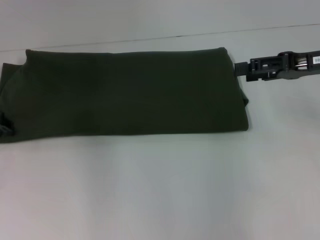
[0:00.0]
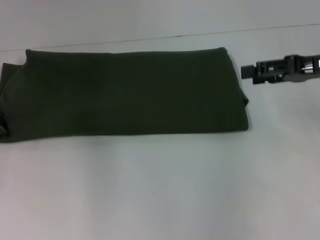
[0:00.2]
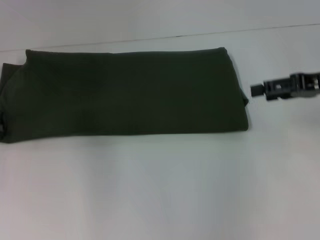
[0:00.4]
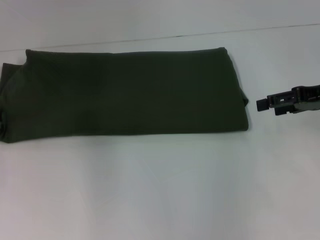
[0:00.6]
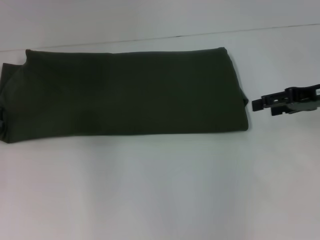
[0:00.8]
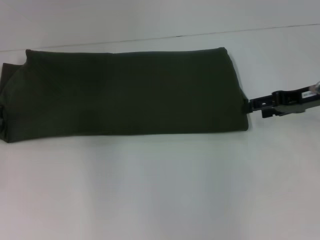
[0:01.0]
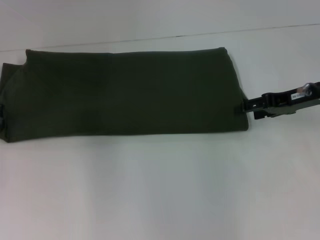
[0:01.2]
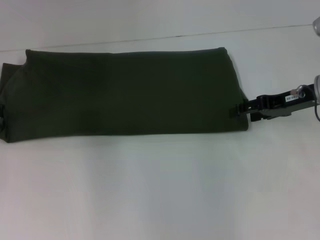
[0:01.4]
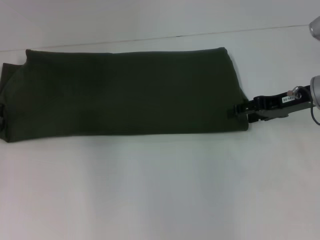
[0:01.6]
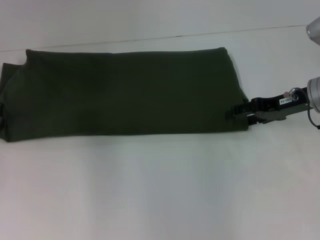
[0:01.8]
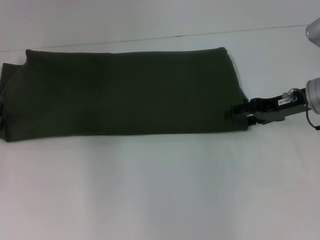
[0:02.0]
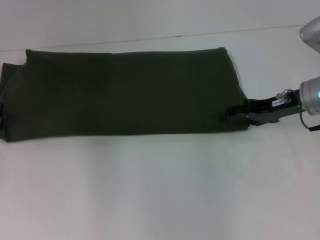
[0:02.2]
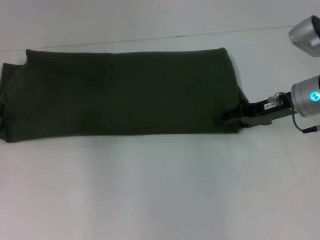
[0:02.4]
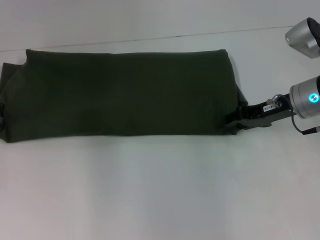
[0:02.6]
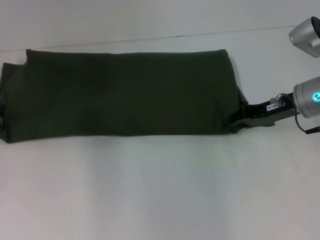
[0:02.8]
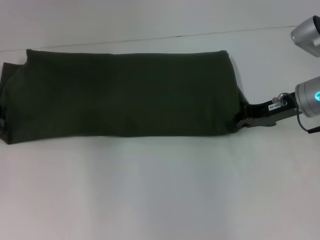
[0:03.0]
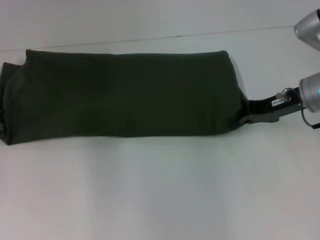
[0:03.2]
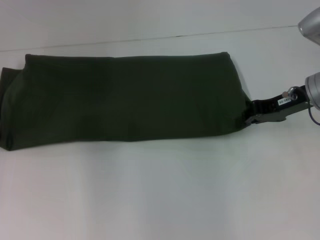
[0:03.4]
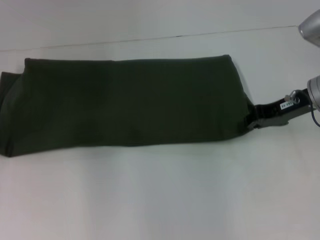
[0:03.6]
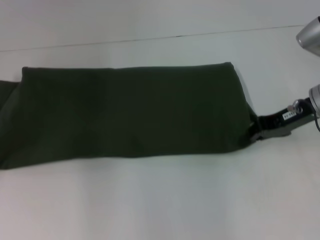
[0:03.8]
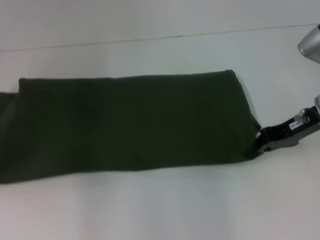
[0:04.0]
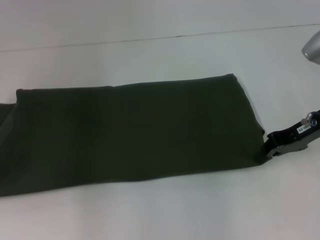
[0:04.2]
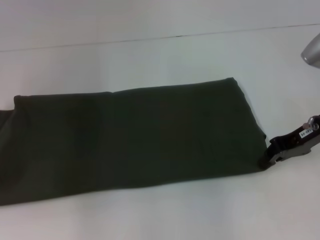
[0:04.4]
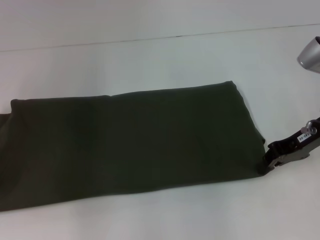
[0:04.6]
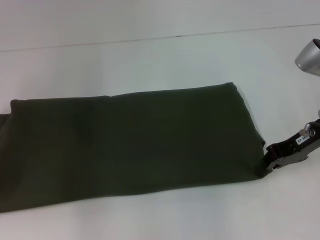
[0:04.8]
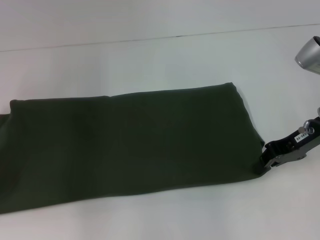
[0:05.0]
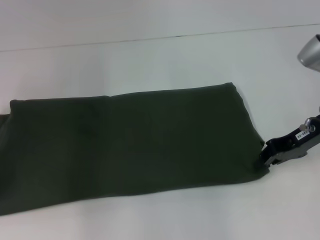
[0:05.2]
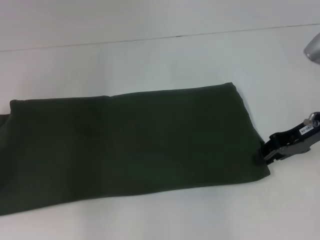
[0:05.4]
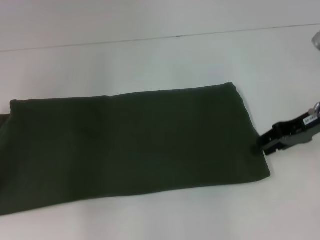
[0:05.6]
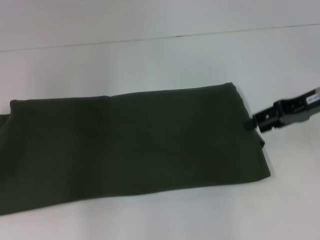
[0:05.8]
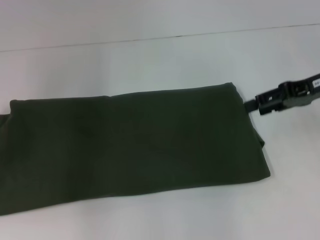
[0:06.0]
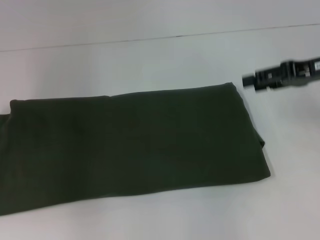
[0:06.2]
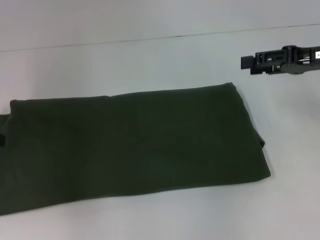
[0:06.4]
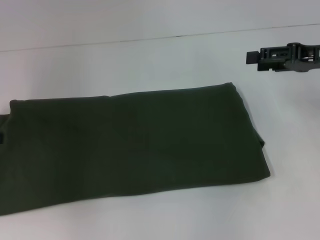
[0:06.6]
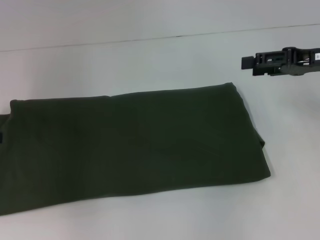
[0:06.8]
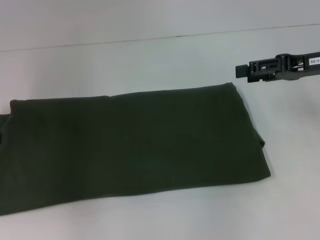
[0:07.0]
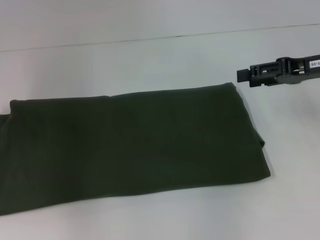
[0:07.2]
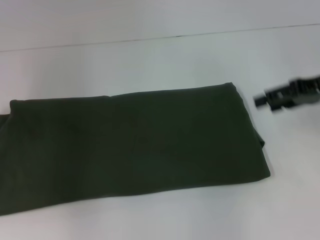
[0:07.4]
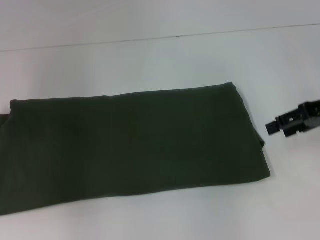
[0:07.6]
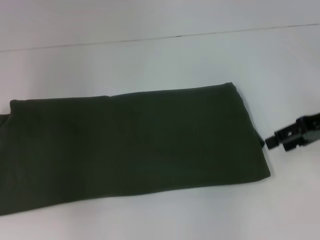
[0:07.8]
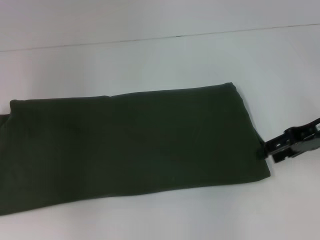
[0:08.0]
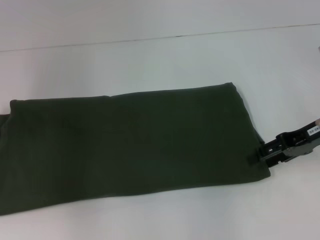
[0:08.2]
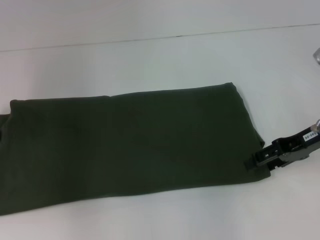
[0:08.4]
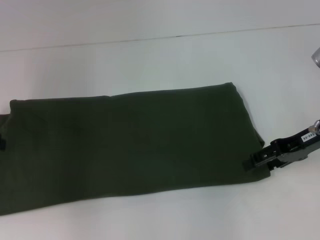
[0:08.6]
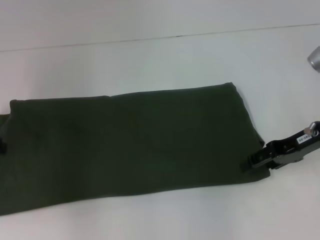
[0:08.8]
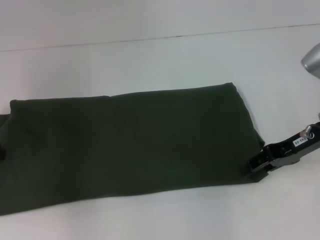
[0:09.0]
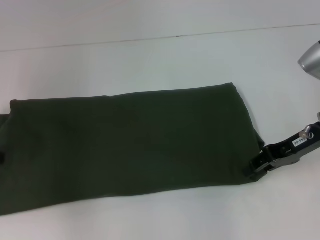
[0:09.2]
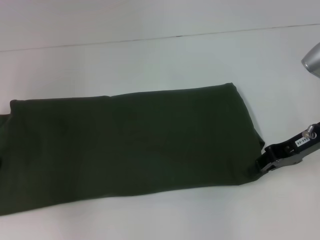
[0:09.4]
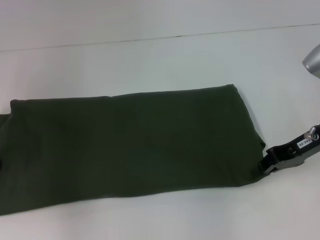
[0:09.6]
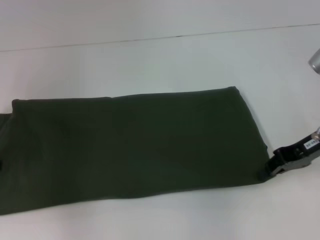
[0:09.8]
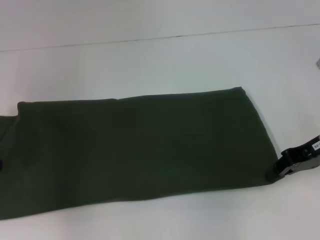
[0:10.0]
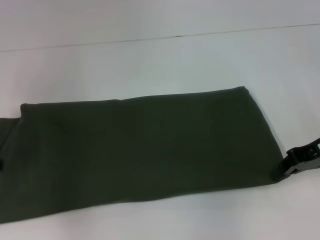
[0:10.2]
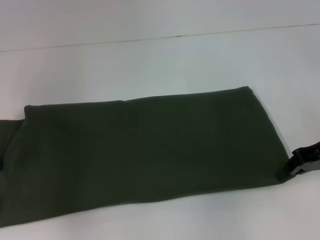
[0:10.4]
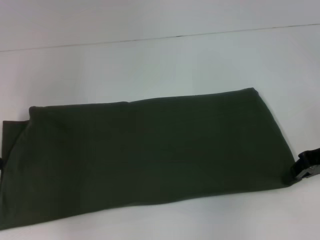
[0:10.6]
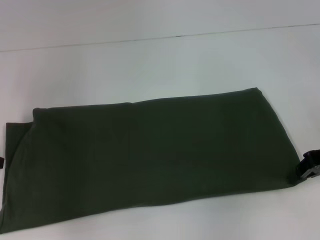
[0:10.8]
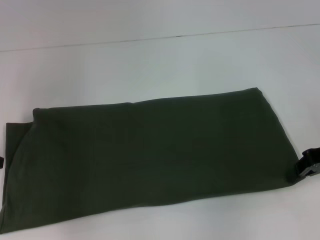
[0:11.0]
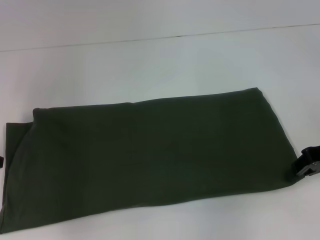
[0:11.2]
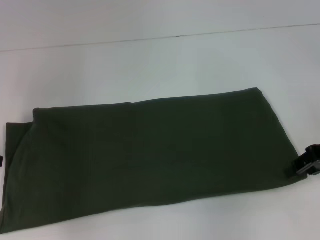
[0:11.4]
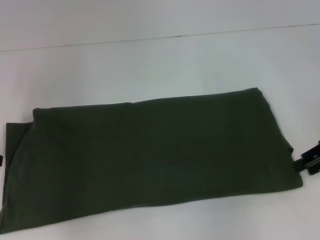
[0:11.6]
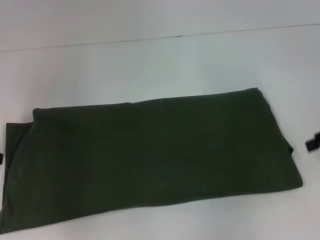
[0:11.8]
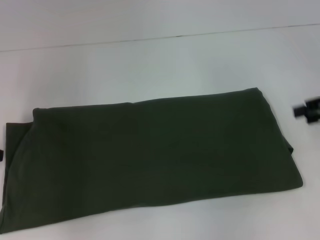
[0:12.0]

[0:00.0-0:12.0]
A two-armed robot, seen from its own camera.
Step, 0:00.0 to 0:11.4: Pull the clothes with your left hand.
Step, 0:00.0 to 0:11.4: Pull the clothes with your right hand.
0:00.0 to 0:01.6: The right gripper travels downward by some 5 cm.
0:01.6 to 0:03.0: The right gripper closes its fingers.
0:03.0 to 0:04.4: The left gripper shifts roughly 5 cm backward.
0:04.4 to 0:06.0: The right gripper goes some 5 cm upward, and opens. Meanwhile the left gripper opens its fingers.
0:07.6 to 0:09.0: The right gripper heads downward, covering about 5 cm.
0:09.0 to 0:10.4: The right gripper closes up.
0:10.4 to 0:12.0: The right gripper moves upward and to the right, roughly 10 cm, and opens up.

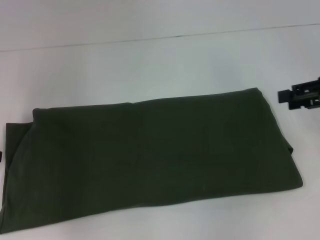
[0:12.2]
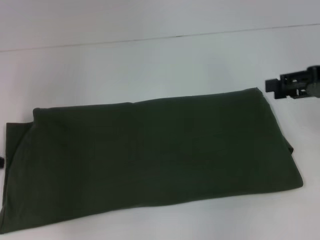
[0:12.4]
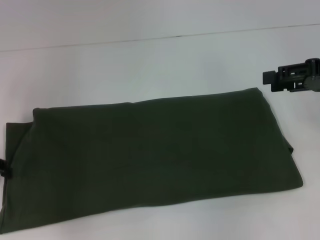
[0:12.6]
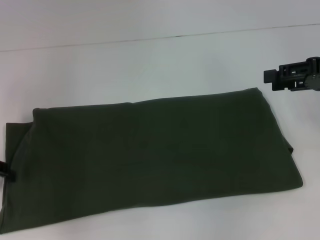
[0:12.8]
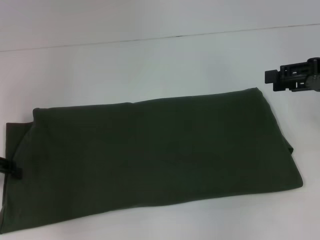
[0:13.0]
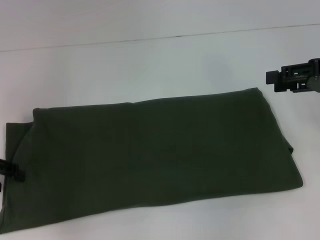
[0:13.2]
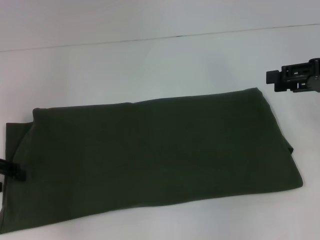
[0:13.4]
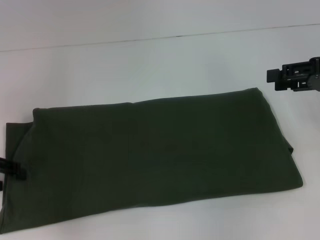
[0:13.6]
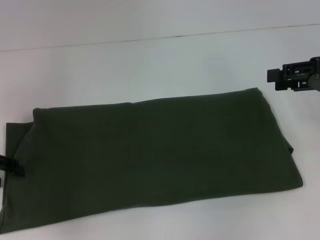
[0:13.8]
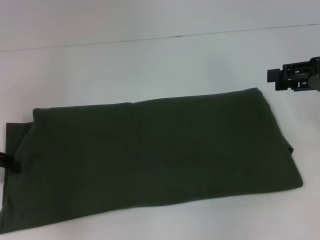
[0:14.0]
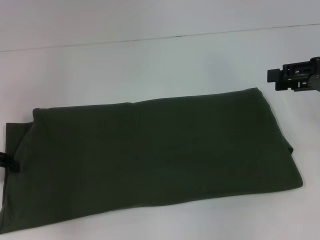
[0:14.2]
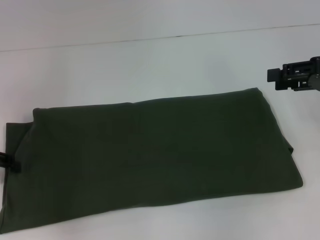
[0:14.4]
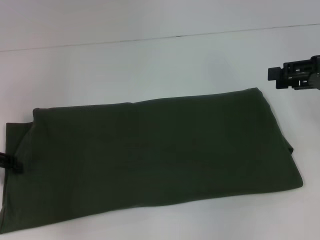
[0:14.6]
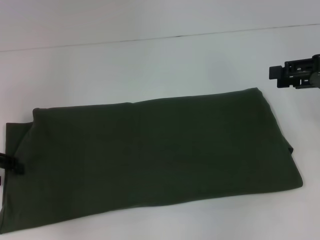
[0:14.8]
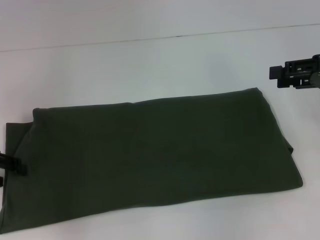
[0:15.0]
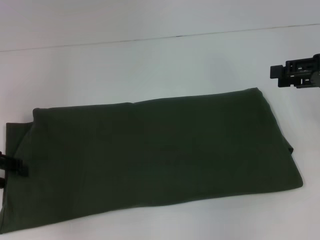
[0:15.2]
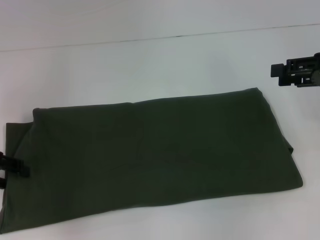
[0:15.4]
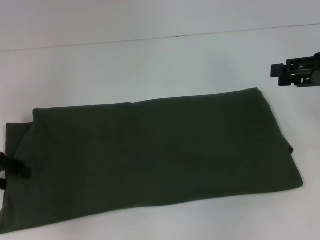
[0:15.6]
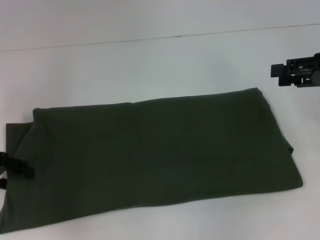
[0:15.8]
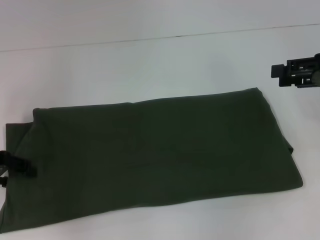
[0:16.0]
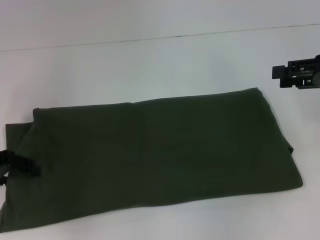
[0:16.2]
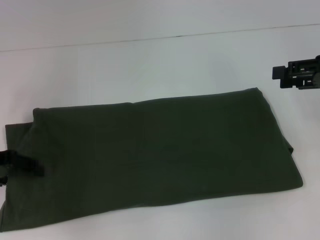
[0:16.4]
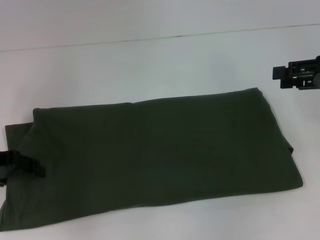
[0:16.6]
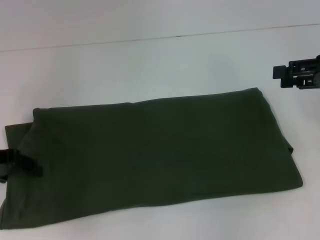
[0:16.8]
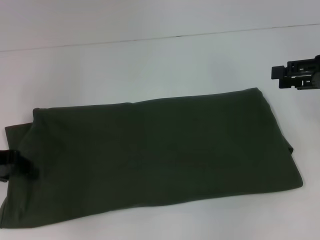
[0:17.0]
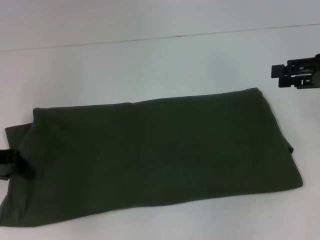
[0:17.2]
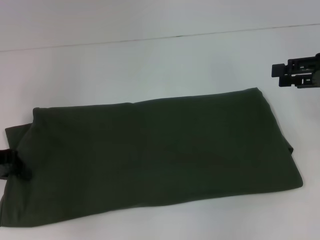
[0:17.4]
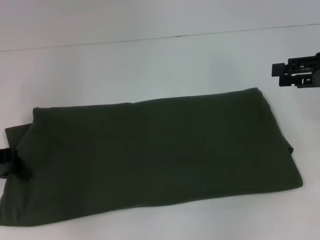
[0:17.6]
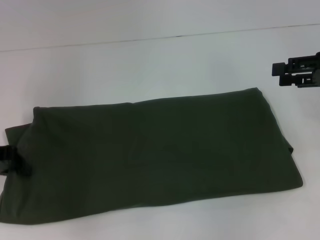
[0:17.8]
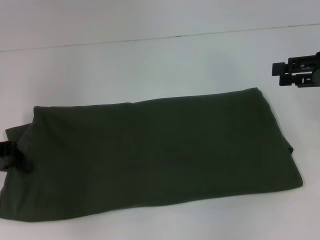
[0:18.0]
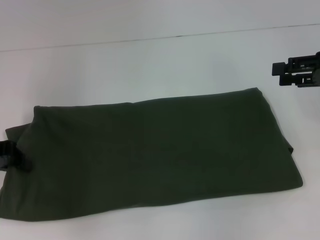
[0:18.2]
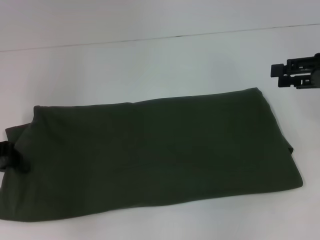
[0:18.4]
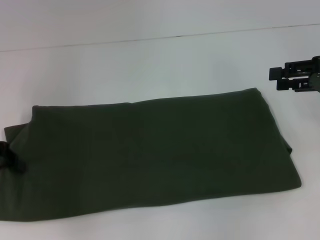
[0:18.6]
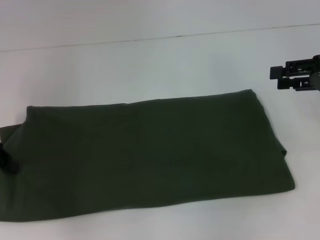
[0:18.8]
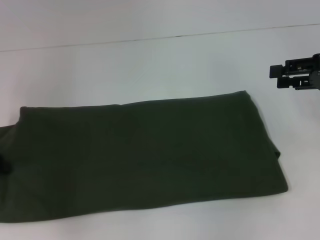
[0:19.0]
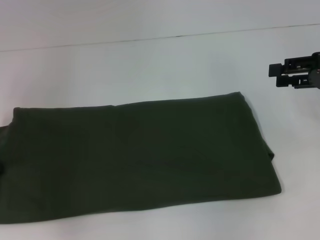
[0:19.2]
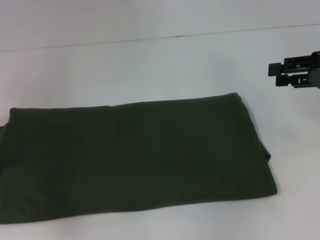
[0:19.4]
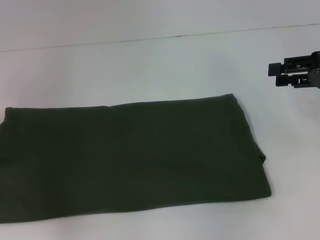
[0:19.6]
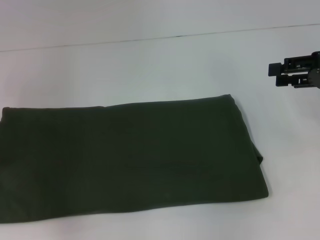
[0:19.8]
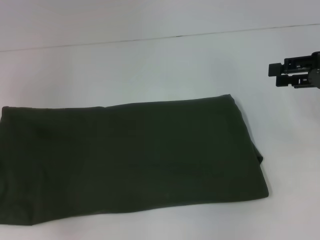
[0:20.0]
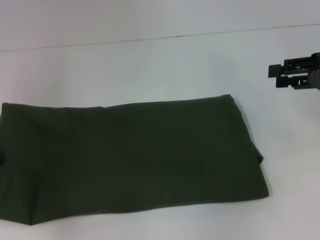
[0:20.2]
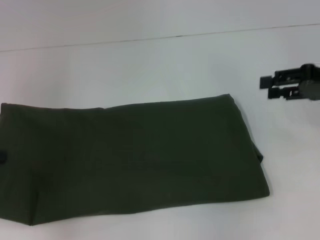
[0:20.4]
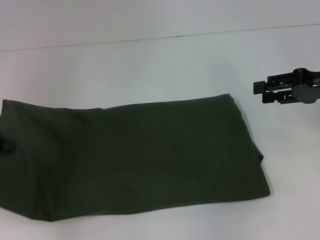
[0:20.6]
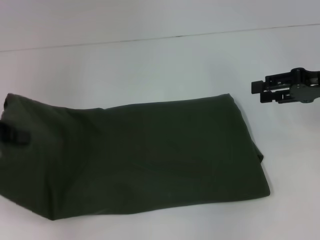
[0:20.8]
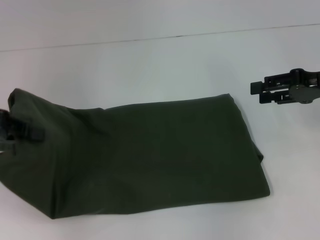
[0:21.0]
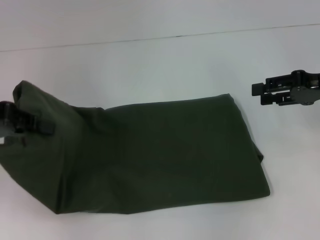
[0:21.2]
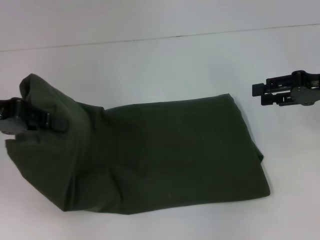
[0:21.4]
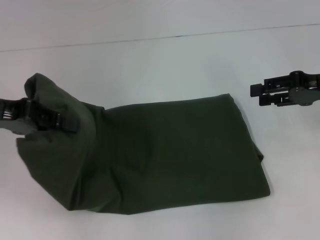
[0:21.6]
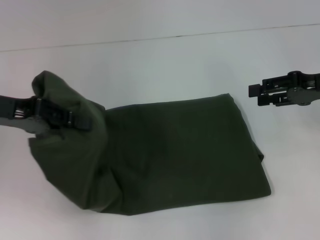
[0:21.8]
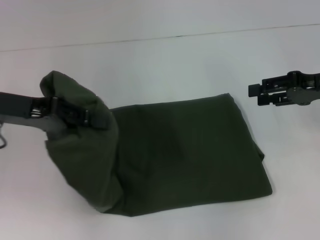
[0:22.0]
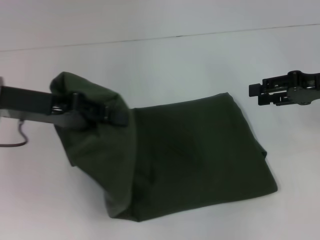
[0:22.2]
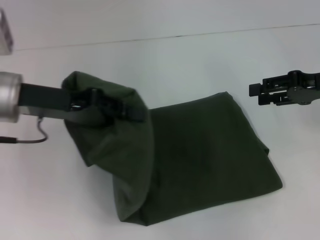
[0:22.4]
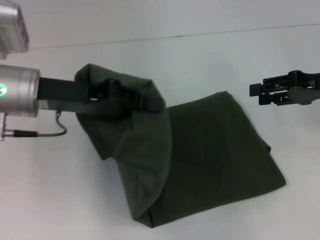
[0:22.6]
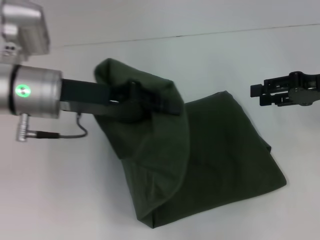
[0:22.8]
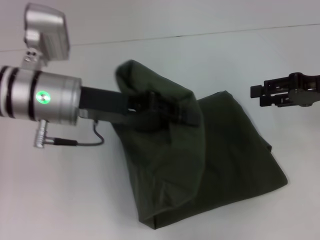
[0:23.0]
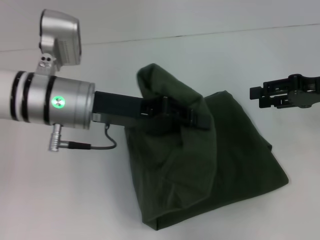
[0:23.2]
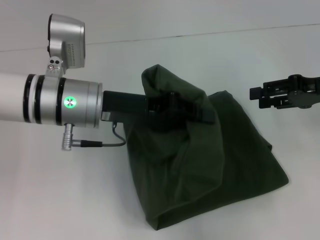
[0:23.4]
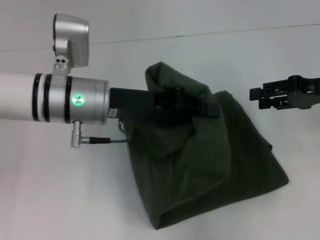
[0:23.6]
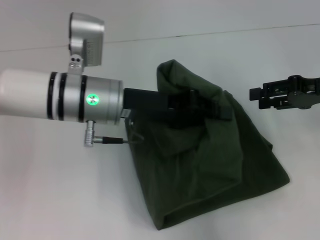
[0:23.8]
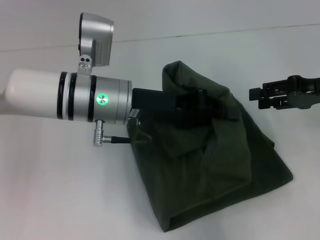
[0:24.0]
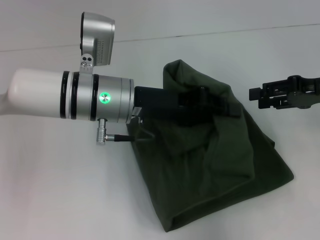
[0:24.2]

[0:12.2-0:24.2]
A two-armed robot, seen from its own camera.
0:12.2 to 0:13.8: The grippers move only a little.
0:13.8 to 0:15.2: Both grippers stay about where they are.
0:15.2 to 0:16.6: There are only small adjustments of the grippers.
0:16.6 to 0:18.2: The left gripper closes up.
0:18.2 to 0:19.8: The left gripper shifts by roughly 5 cm.
0:19.8 to 0:21.2: The left gripper shifts approximately 5 cm to the right.
0:21.2 to 0:22.6: The left gripper is displaced to the right by roughly 10 cm.
0:22.6 to 0:24.2: The left gripper is displaced to the right by roughly 10 cm.
